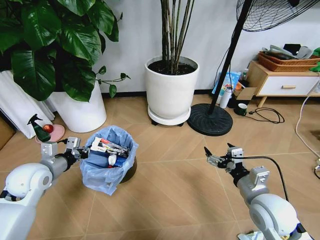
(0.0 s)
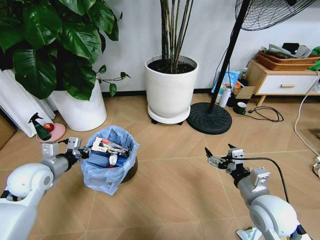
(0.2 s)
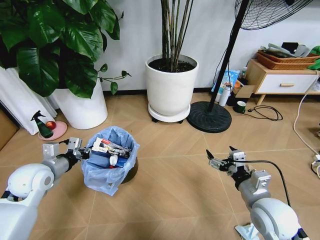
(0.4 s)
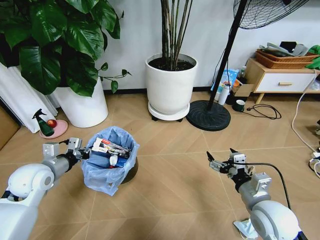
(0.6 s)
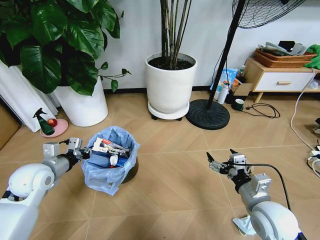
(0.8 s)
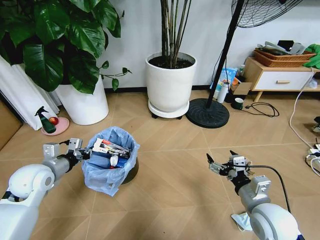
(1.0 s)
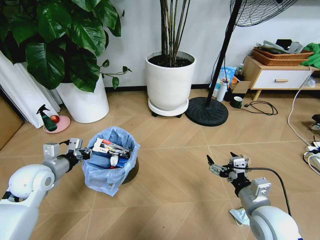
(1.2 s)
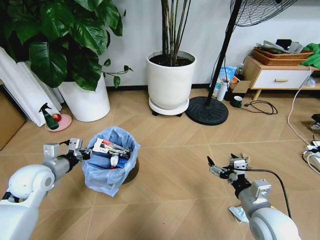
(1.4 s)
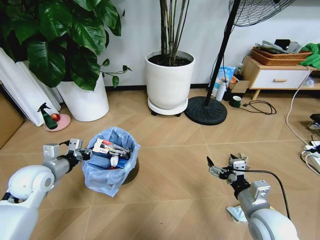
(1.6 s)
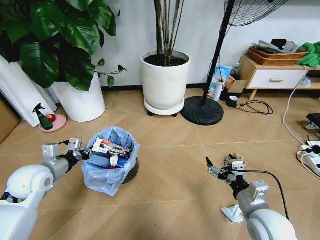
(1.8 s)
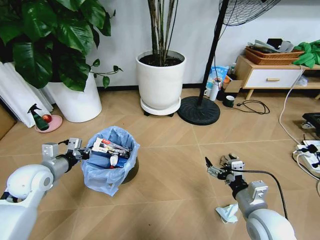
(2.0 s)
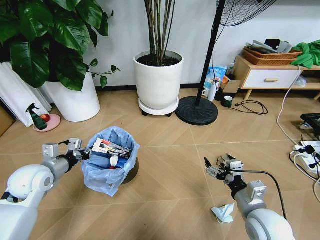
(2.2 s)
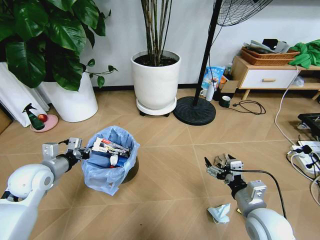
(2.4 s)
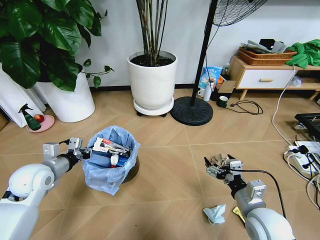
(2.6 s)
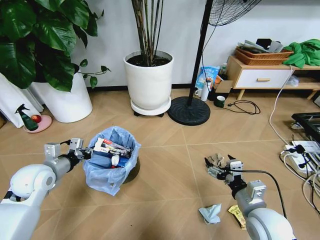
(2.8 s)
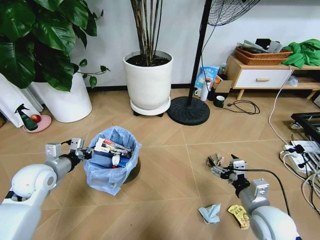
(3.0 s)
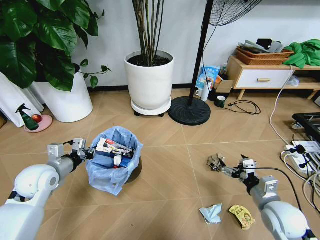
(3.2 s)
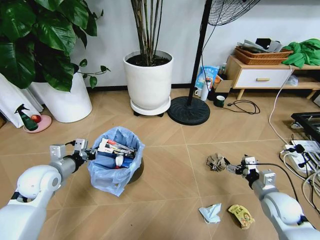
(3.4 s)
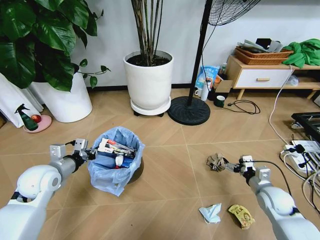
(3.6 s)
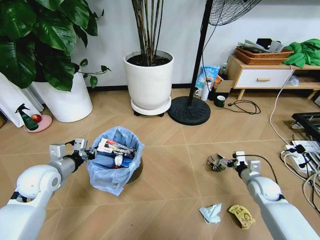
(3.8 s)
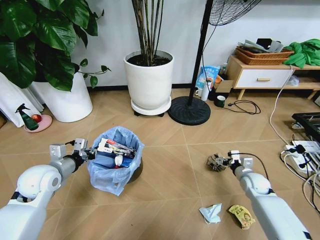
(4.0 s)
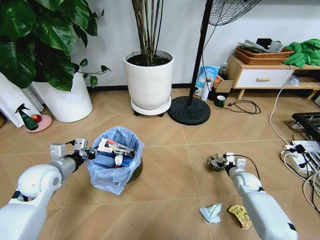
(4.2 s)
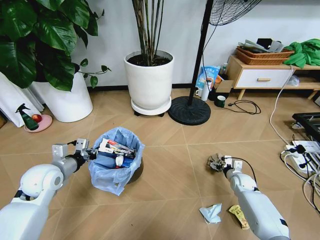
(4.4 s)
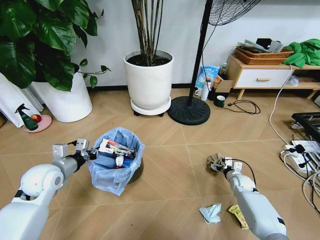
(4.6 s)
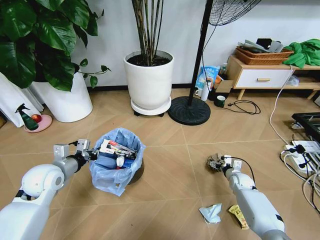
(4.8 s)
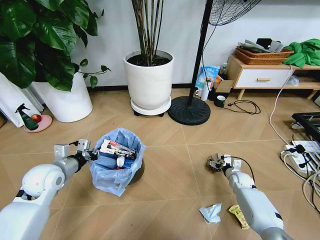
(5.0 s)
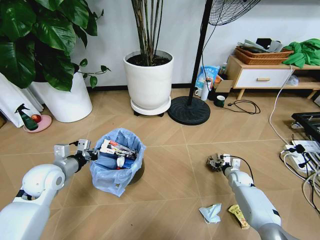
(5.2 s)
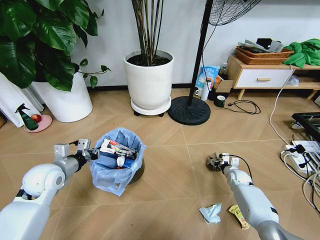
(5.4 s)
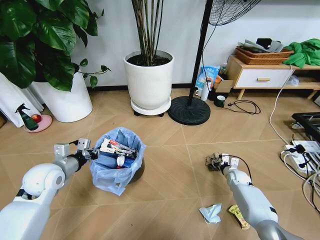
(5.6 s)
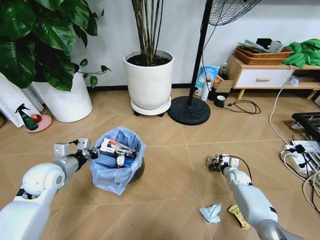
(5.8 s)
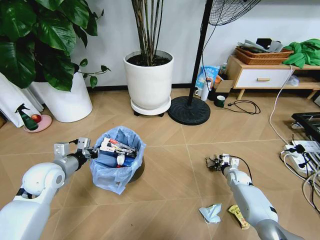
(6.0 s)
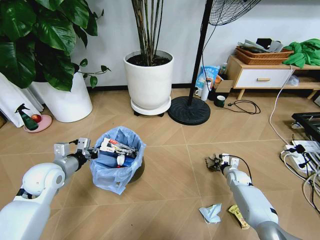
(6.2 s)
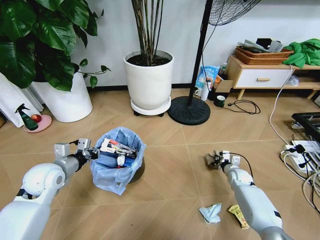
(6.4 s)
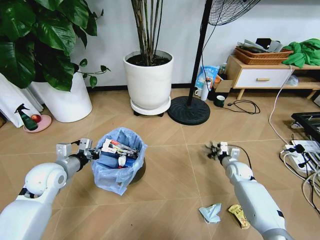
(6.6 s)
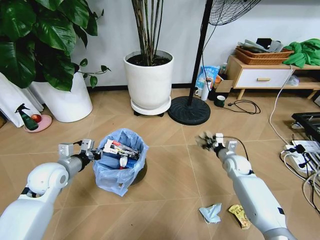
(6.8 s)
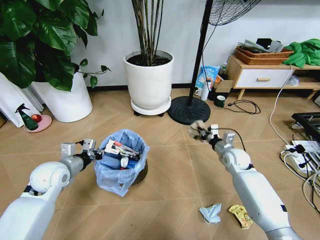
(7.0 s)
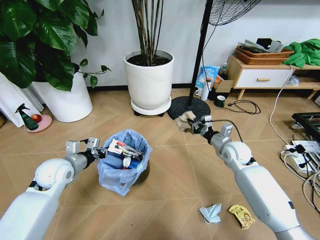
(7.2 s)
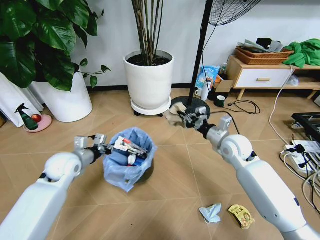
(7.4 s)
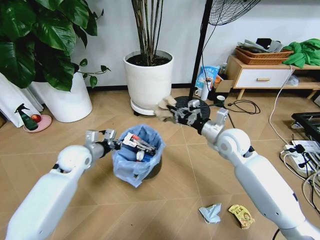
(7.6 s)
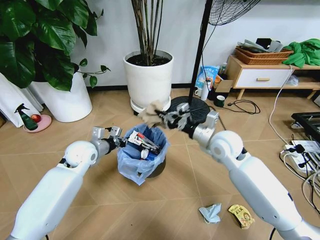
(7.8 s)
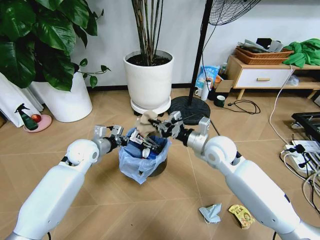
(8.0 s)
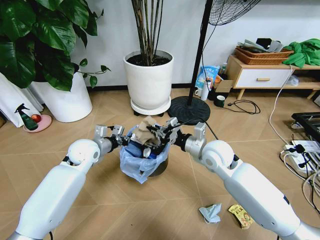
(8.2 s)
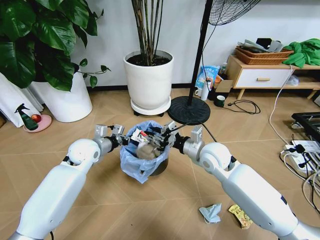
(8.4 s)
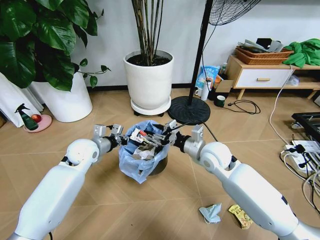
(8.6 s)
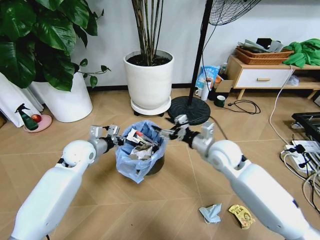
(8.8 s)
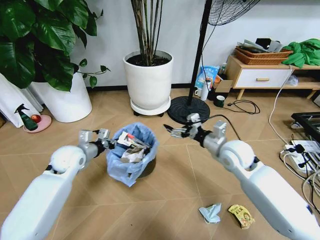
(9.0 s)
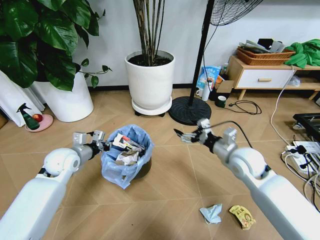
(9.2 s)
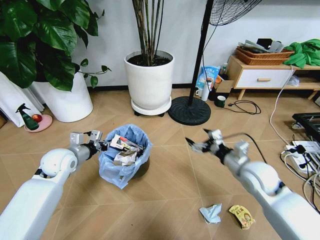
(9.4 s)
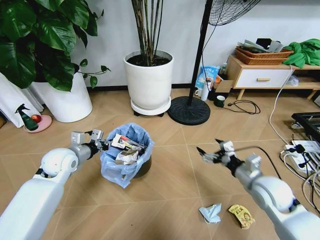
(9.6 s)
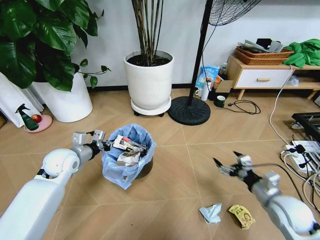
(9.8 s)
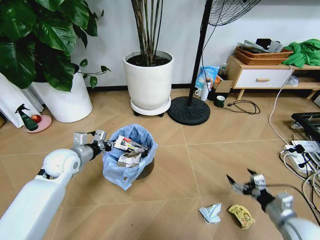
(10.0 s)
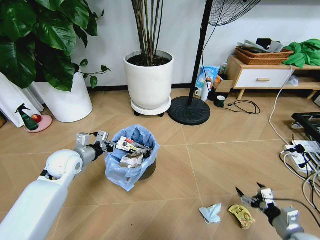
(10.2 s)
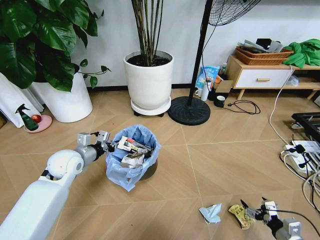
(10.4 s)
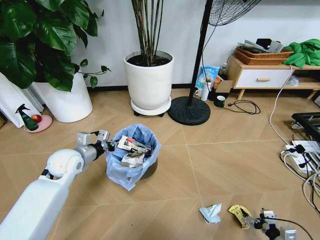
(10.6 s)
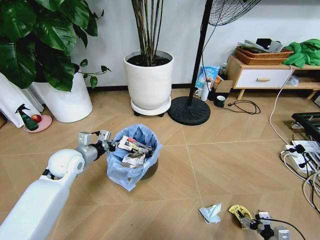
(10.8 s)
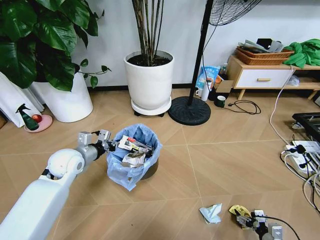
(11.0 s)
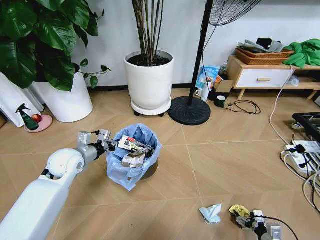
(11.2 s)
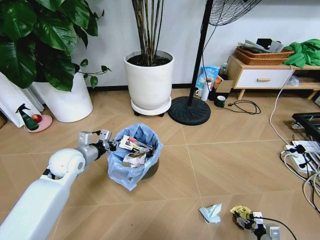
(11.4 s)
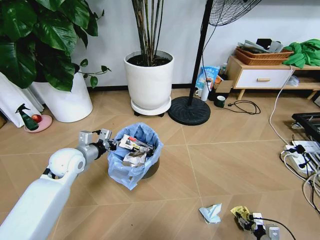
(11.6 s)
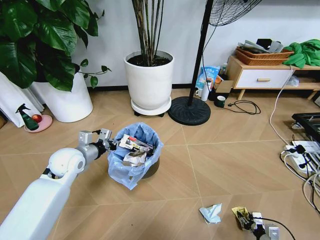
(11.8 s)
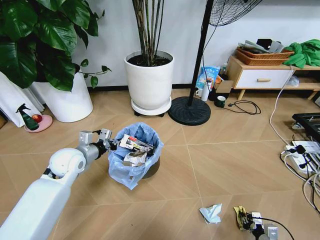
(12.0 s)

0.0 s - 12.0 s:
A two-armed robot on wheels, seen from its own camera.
Task of the whole recording: Pick up the trash bin and place the garbage on the floor into it.
3.0 s - 4.4 s: The right gripper is displaced forward, downward and to the right by approximately 30 cm.
4.4 s - 6.0 s: The right gripper closes.
6.0 s - 7.6 s: The right gripper travels upward and to the left by approximately 35 cm, while the left gripper is displaced forward and to the right by roughly 10 cm.
7.6 s - 9.0 s: The right gripper opens up.
9.0 s - 10.4 s: The right gripper is displaced backward, downward and to the right by approximately 40 cm.
10.4 s - 12.0 s: The right gripper moves downward, approximately 10 cm, and closes its fingers.

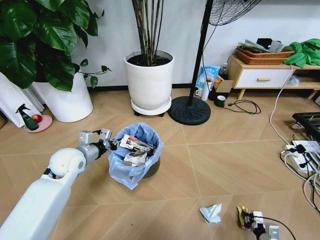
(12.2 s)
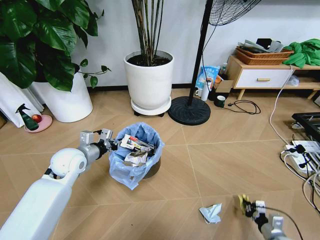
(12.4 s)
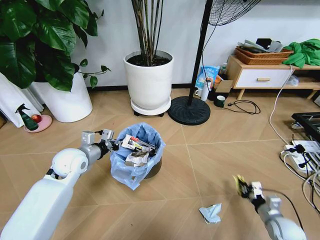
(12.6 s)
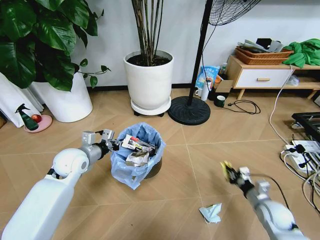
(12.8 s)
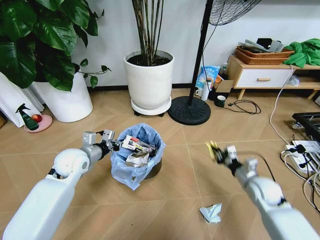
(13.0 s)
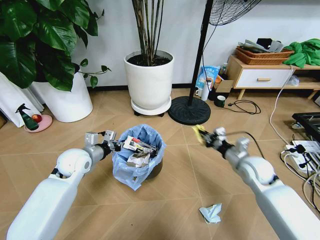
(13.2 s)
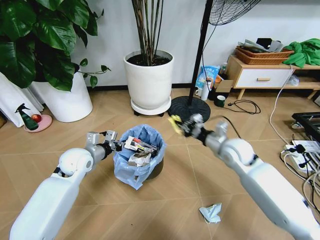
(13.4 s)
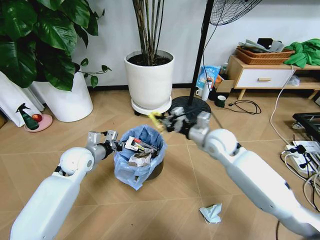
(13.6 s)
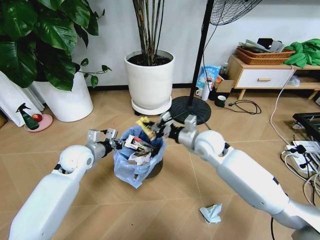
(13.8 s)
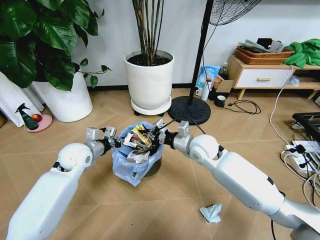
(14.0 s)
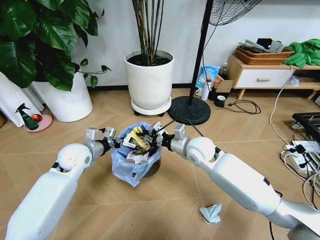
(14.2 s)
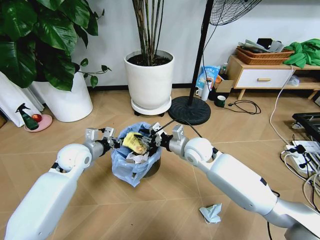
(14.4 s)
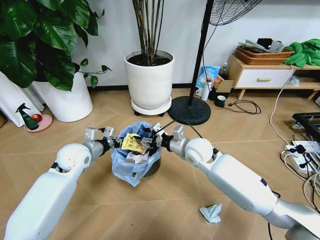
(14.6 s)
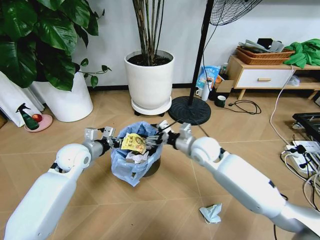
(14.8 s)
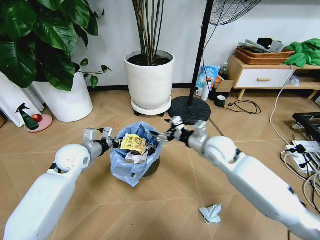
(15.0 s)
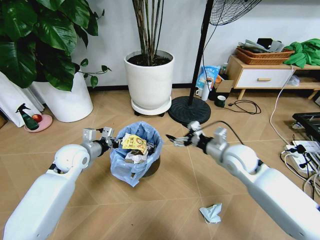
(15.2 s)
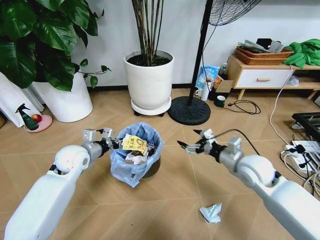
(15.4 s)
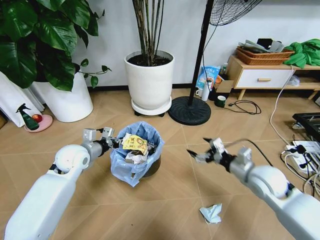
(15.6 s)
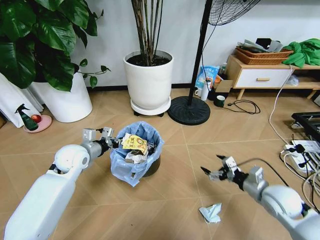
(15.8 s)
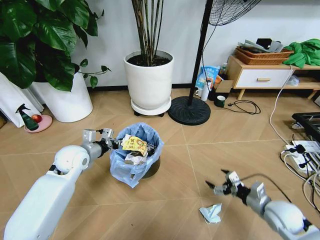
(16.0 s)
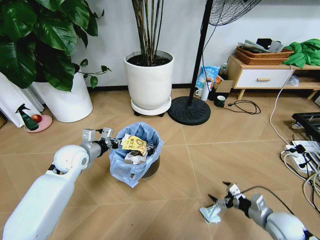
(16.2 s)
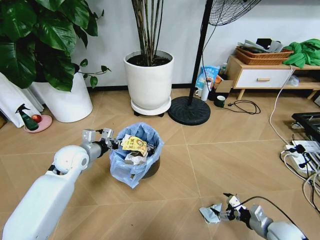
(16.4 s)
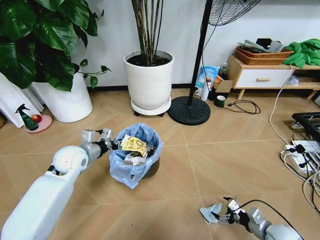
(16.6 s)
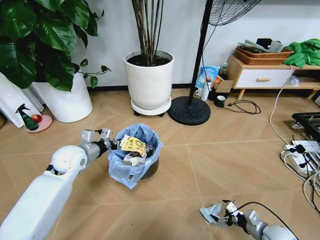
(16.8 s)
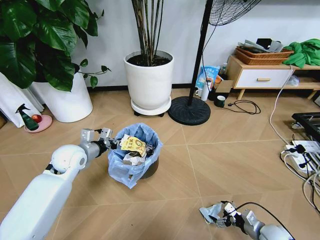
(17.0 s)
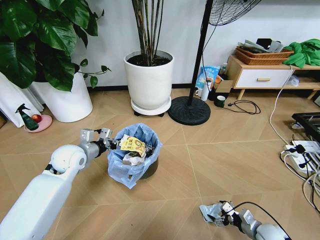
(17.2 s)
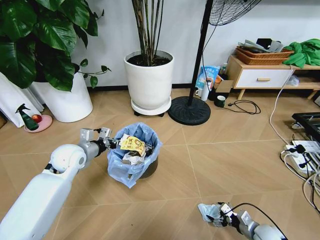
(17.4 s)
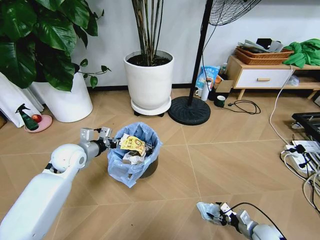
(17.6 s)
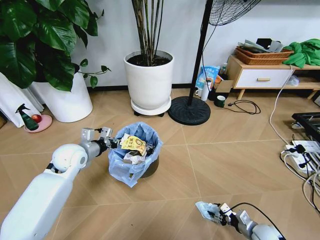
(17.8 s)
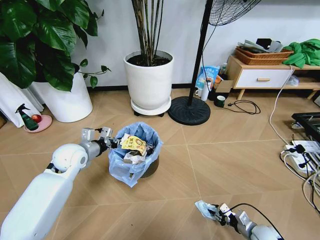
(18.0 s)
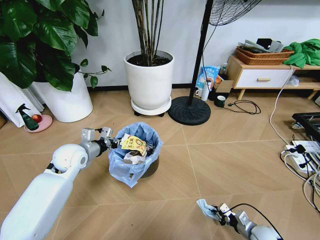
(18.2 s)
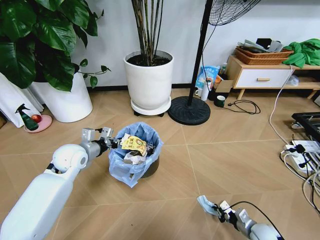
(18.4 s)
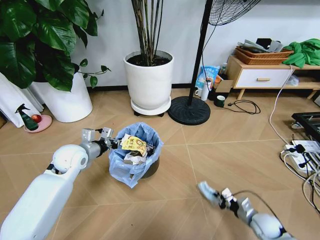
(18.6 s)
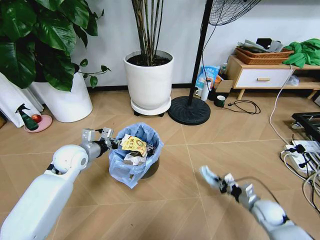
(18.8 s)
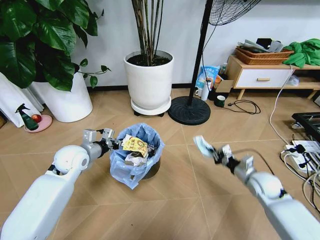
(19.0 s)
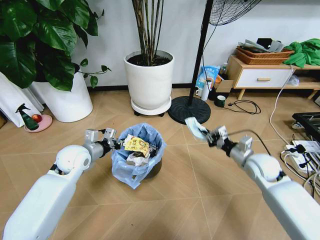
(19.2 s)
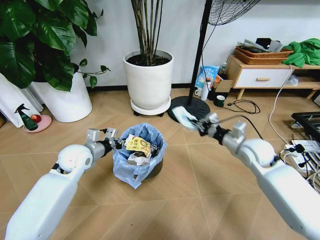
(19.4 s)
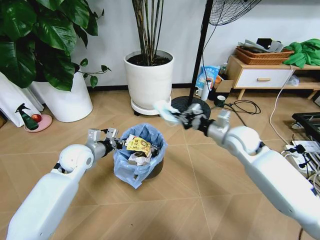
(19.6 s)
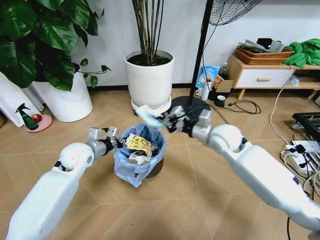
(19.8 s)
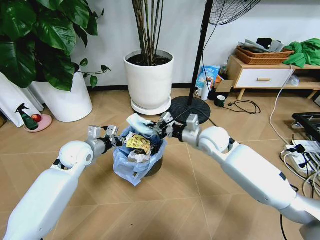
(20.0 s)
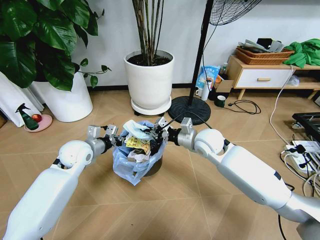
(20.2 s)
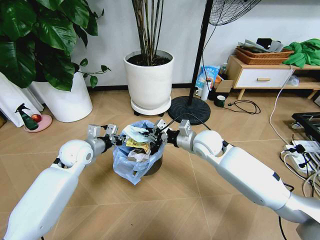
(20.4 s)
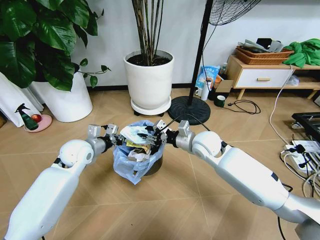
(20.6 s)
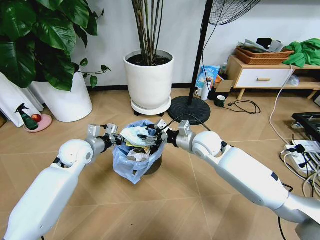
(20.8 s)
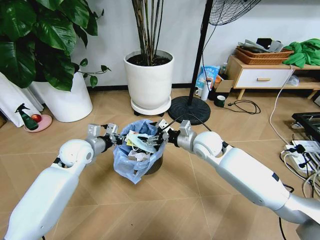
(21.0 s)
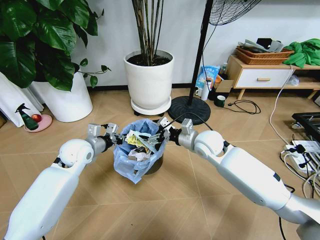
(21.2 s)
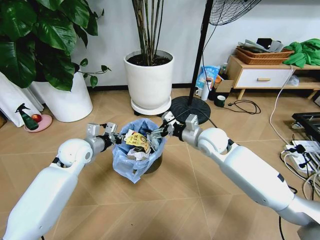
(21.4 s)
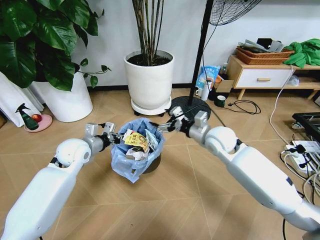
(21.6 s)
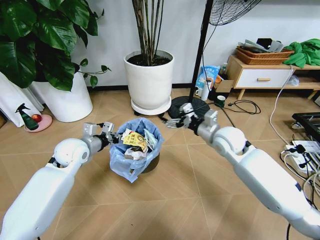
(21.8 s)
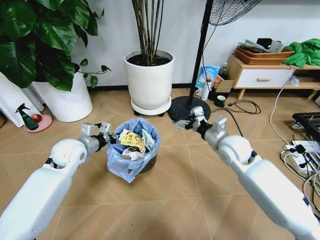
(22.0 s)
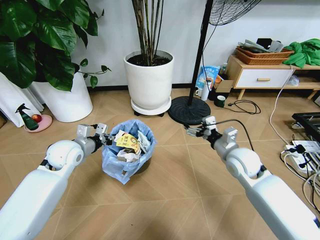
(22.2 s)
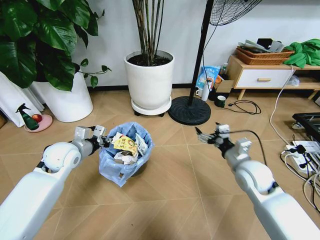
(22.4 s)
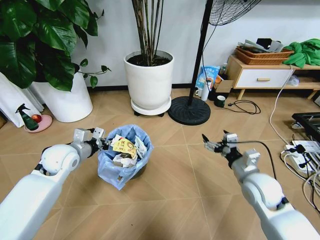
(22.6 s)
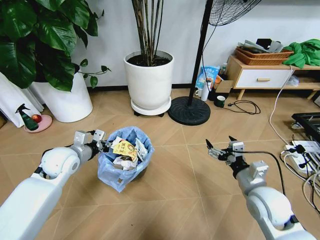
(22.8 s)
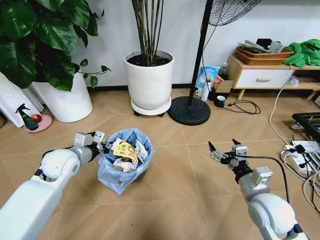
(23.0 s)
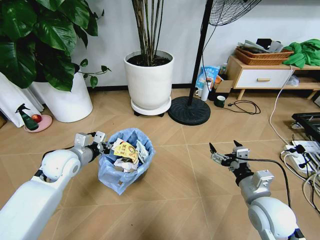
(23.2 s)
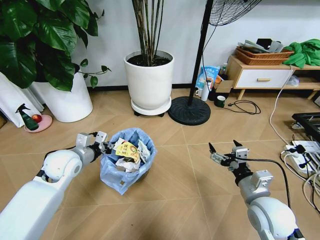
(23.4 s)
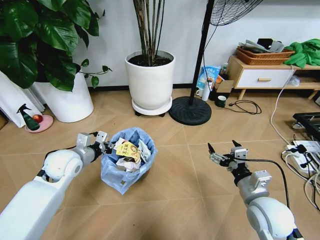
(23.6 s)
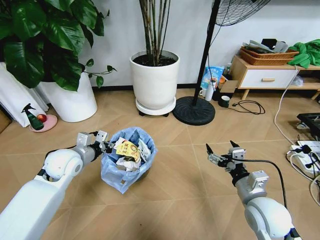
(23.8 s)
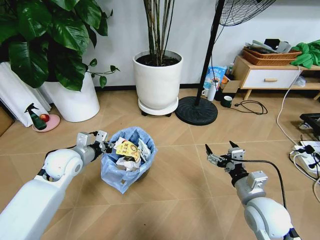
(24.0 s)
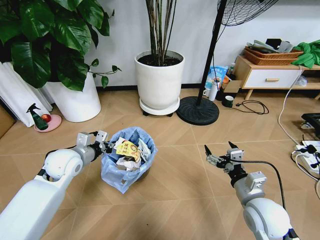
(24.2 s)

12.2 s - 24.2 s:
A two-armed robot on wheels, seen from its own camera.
Task of the whole recording: Pick up the trash bin and place the garbage on the floor into it.
12.2 s - 13.8 s: The right gripper goes about 50 cm upward, forward and to the left.
13.8 s - 15.2 s: The right gripper goes approximately 10 cm to the right and backward, and opens.
15.2 s - 16.6 s: The right gripper shifts roughly 35 cm downward, backward and to the right.
16.6 s - 18.2 s: The right gripper is displaced downward by approximately 5 cm, and closes its fingers.
18.2 s - 19.8 s: The right gripper travels upward, forward and to the left by about 40 cm.
19.8 s - 21.2 s: The right gripper goes some 5 cm to the left, and opens.
21.2 s - 22.6 s: The right gripper goes about 20 cm backward and to the right.
22.6 s - 24.2 s: The right gripper travels backward by about 5 cm.
